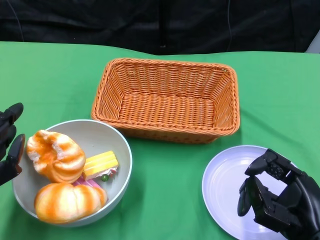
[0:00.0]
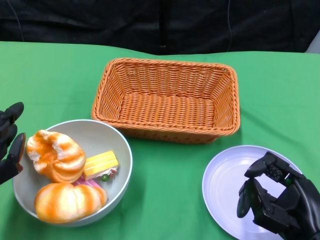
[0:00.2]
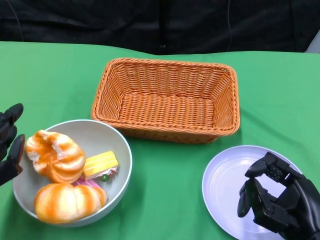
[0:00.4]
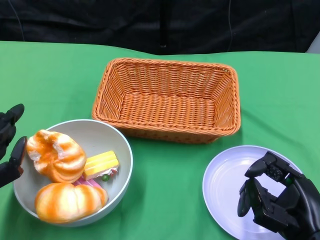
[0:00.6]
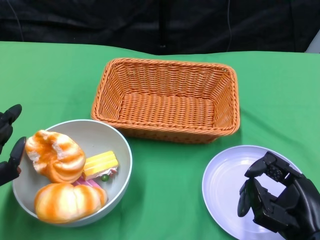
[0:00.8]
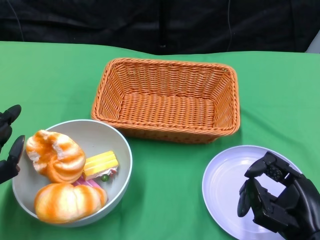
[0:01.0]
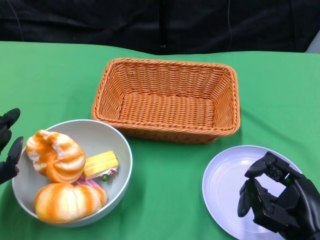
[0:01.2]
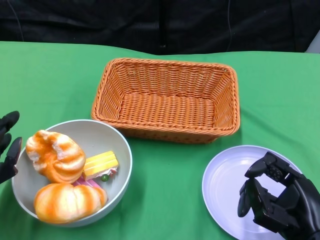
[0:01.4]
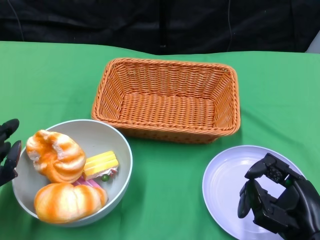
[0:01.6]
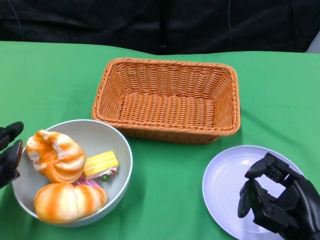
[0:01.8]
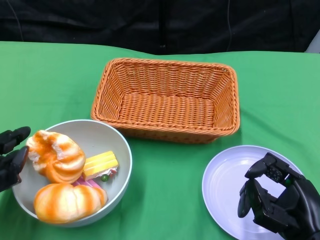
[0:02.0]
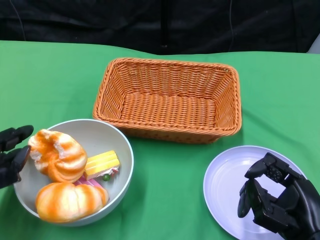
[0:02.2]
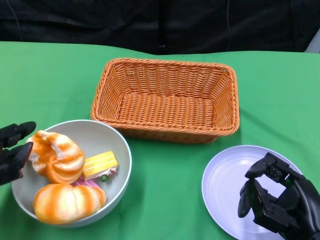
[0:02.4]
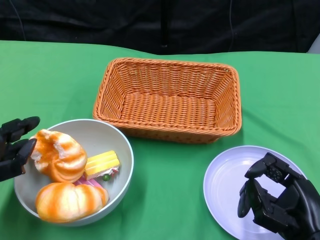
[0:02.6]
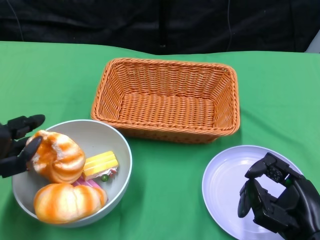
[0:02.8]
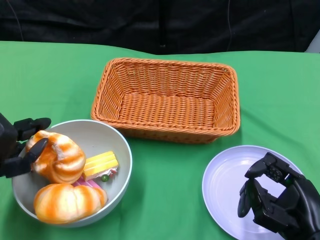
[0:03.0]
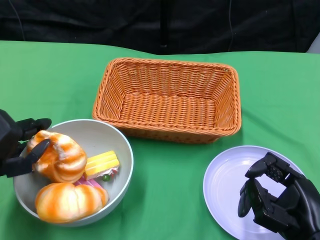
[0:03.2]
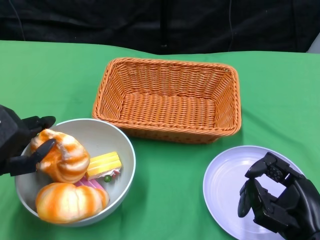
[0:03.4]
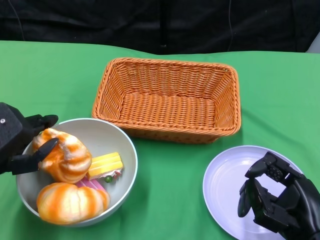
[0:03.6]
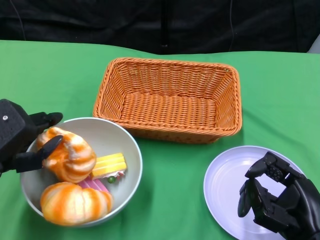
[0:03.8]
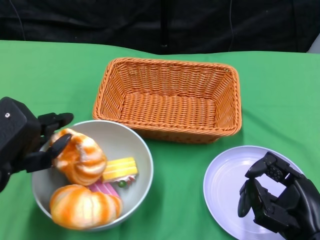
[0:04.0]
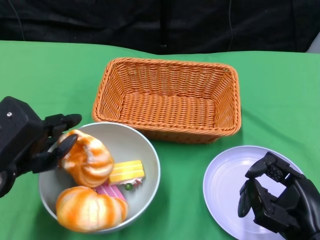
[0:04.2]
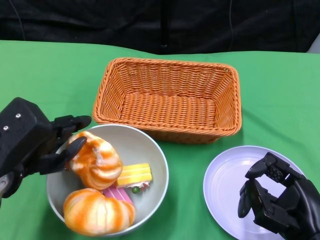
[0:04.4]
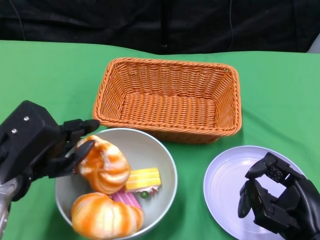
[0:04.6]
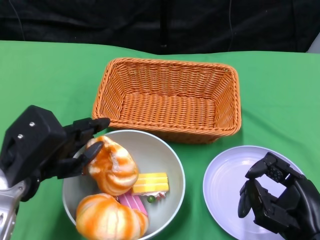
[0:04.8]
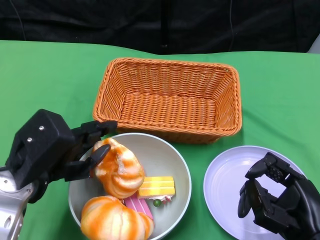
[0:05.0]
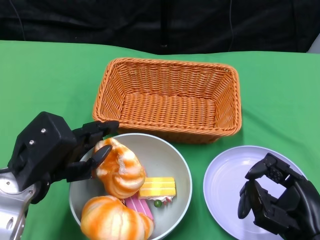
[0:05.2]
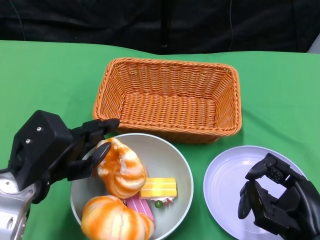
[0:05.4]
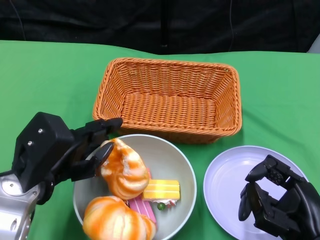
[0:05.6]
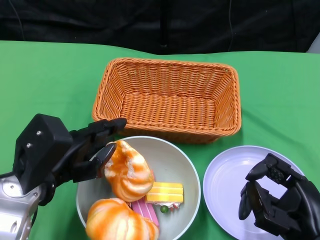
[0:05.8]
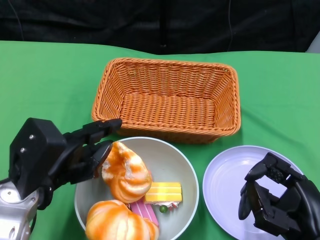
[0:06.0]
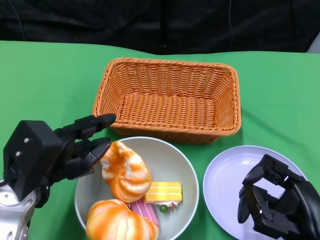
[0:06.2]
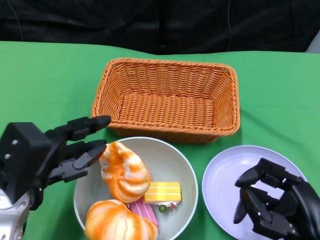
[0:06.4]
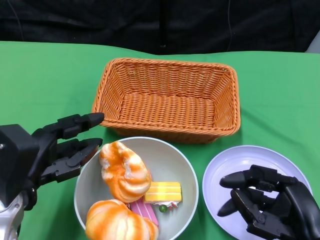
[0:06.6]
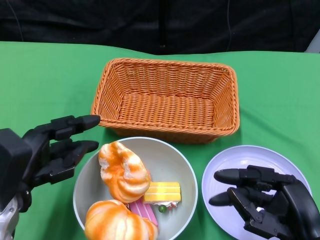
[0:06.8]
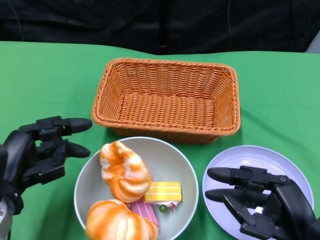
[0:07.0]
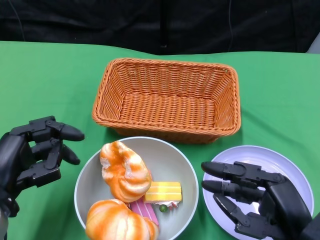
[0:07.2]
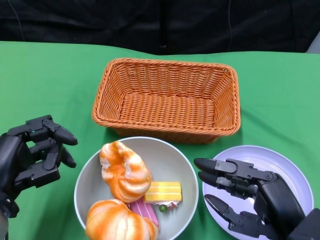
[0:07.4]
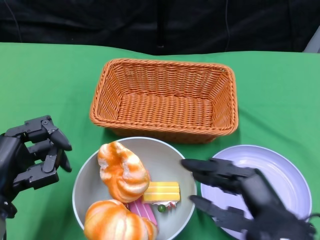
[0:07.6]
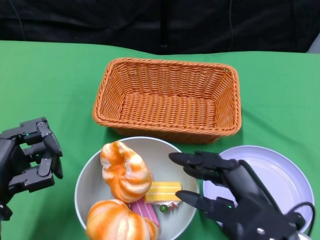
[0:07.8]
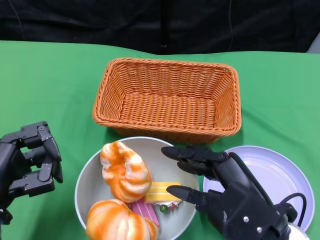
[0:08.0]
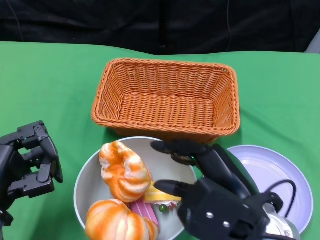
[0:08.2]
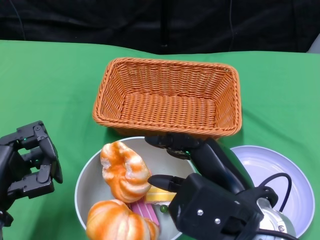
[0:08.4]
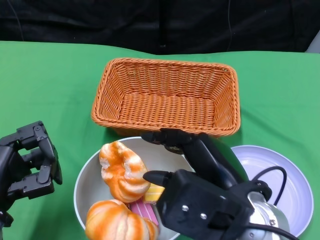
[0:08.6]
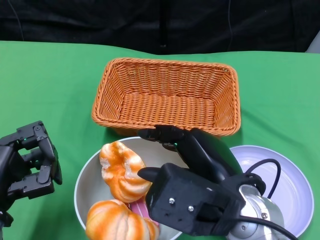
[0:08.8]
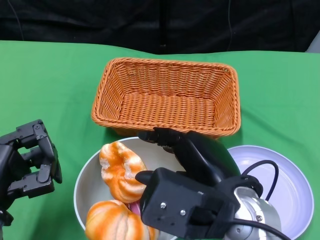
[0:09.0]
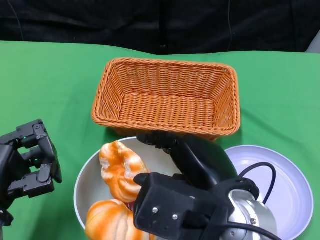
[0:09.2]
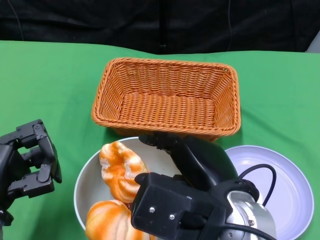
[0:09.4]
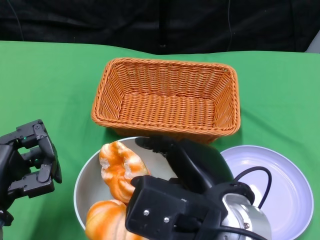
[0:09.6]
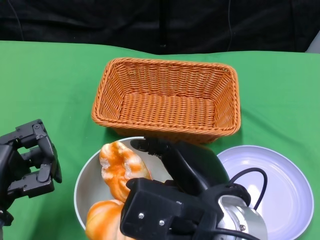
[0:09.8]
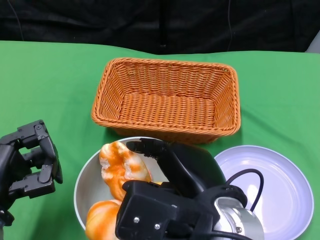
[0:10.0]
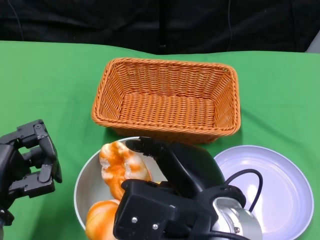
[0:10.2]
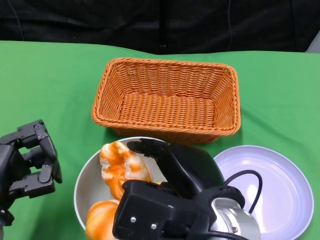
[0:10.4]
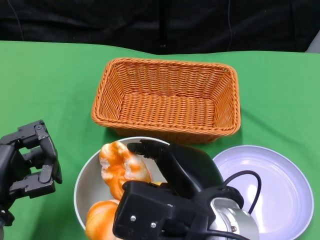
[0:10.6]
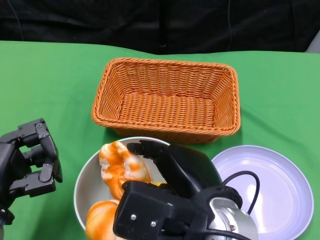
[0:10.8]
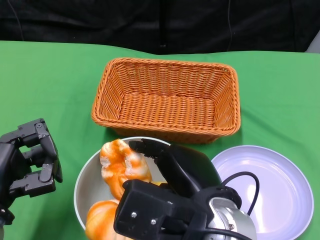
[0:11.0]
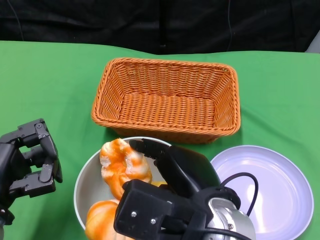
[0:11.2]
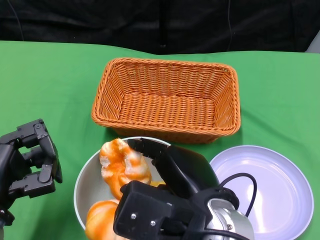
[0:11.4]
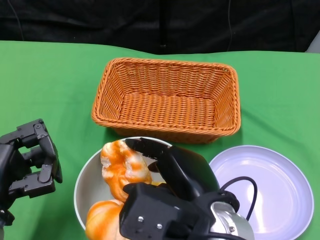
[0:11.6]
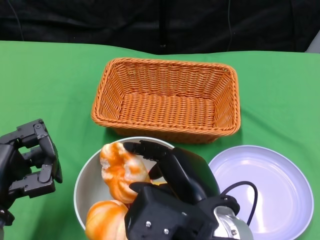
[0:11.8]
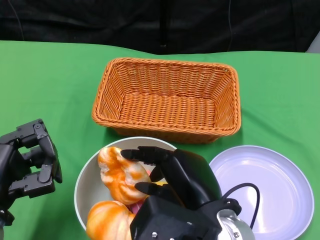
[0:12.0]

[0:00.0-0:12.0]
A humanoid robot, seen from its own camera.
Step, 0:00.0 to 0:06.2: Push the bowl to the center of the table using the left gripper.
0:00.0 to 0:01.6: The hands make only small movements.
0:01.6 to 0:03.0: The hands make only small movements.
0:06.0 to 0:07.6: The right hand changes place by about 5 cm. The left hand shifts by some 5 cm.
0:07.6 to 0:09.0: The right hand shifts approximately 10 cm to the left and upward.
0:09.0 to 0:12.0: The hands stay close to where they were, moving slightly.

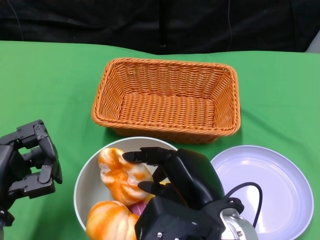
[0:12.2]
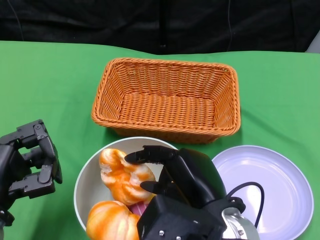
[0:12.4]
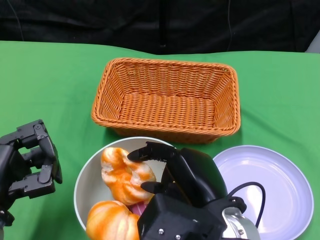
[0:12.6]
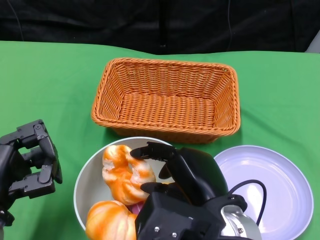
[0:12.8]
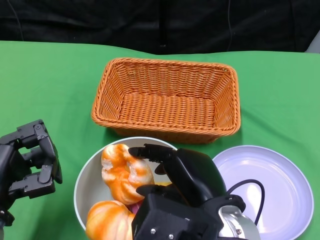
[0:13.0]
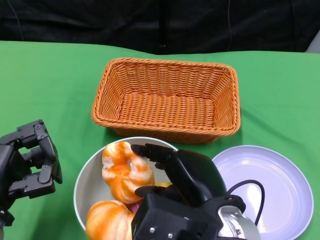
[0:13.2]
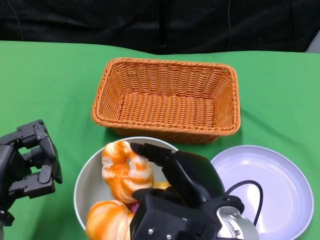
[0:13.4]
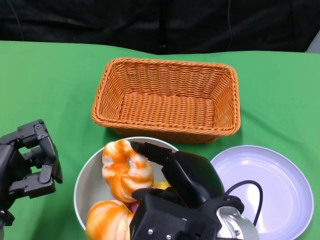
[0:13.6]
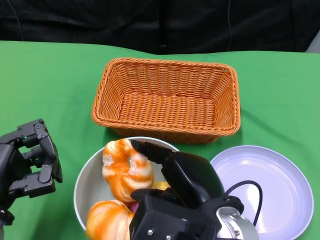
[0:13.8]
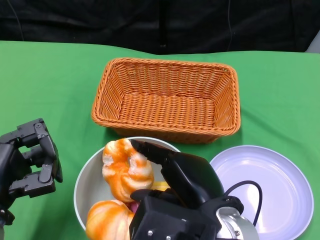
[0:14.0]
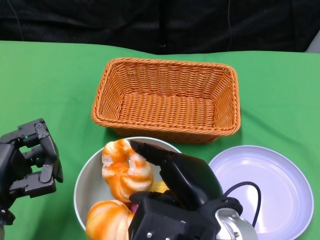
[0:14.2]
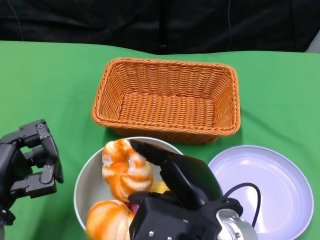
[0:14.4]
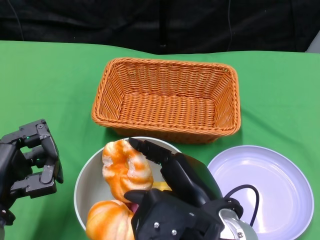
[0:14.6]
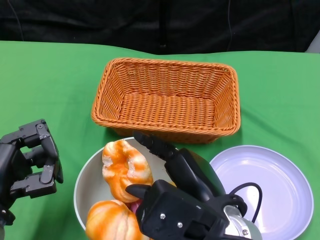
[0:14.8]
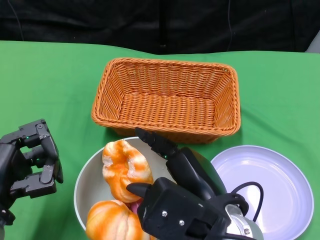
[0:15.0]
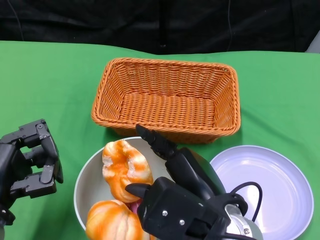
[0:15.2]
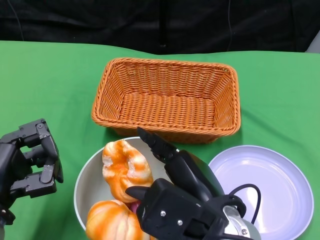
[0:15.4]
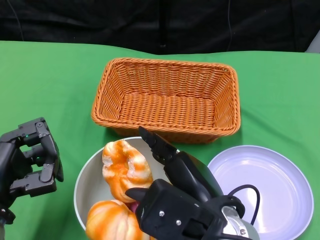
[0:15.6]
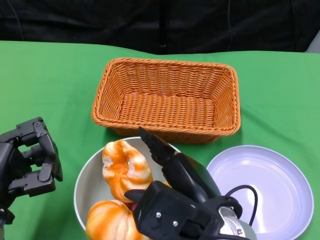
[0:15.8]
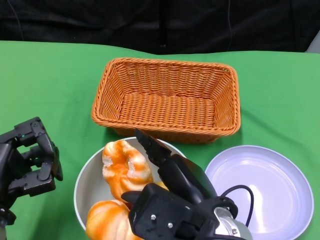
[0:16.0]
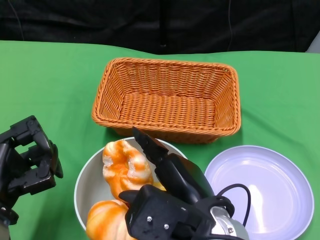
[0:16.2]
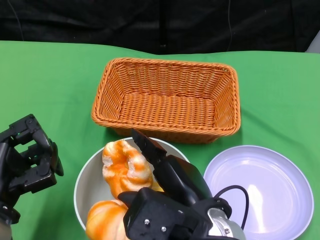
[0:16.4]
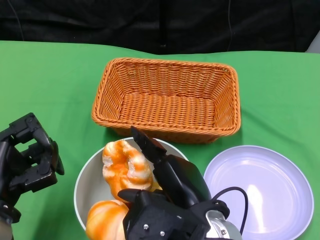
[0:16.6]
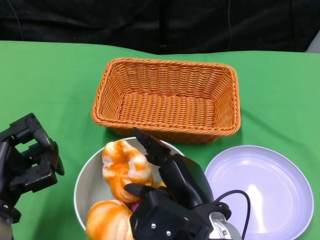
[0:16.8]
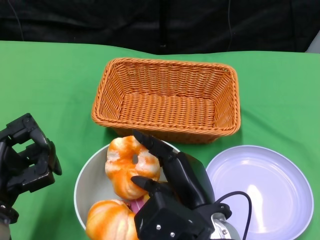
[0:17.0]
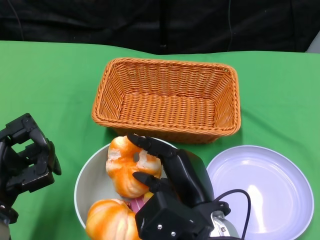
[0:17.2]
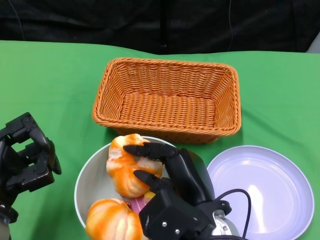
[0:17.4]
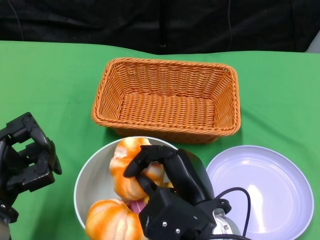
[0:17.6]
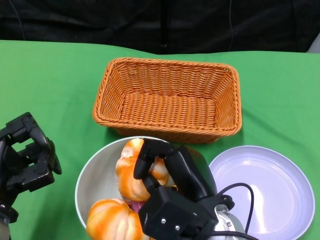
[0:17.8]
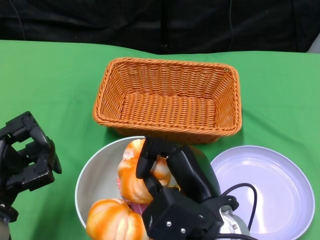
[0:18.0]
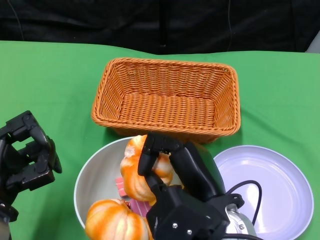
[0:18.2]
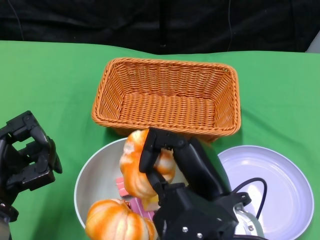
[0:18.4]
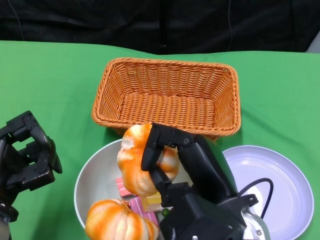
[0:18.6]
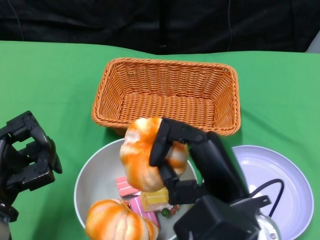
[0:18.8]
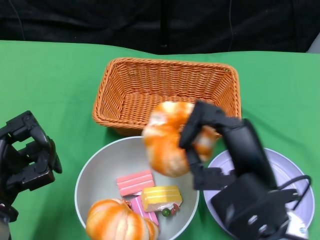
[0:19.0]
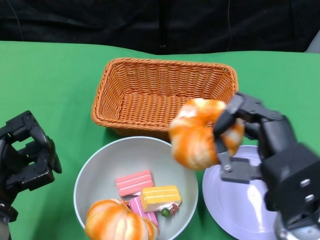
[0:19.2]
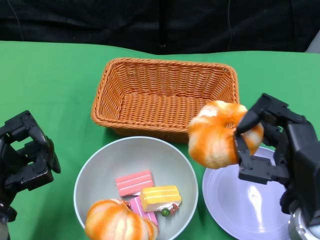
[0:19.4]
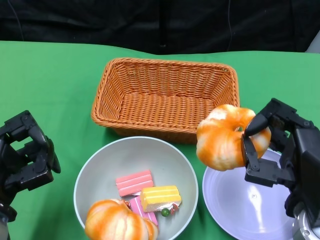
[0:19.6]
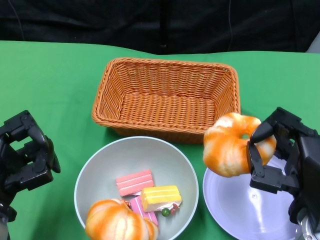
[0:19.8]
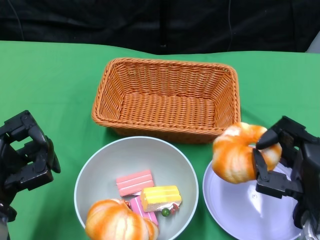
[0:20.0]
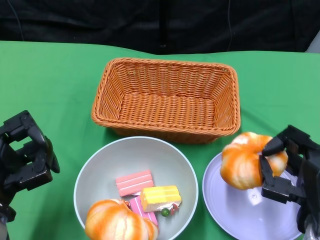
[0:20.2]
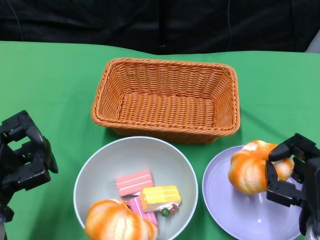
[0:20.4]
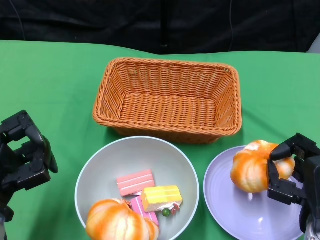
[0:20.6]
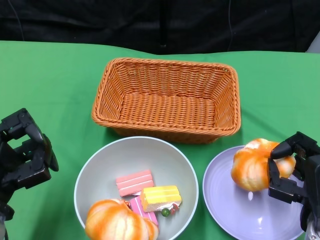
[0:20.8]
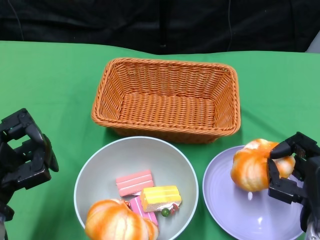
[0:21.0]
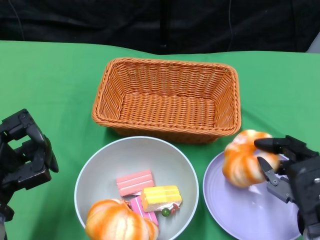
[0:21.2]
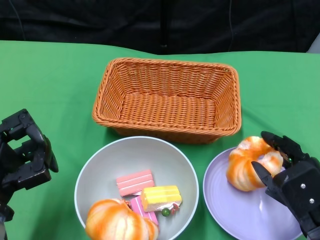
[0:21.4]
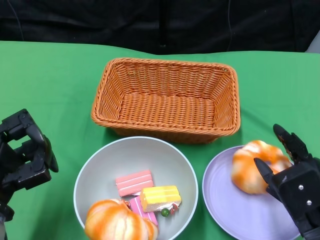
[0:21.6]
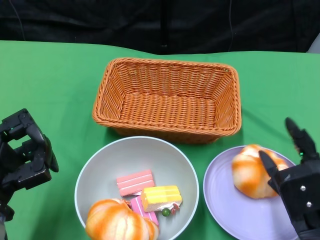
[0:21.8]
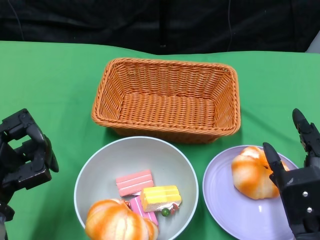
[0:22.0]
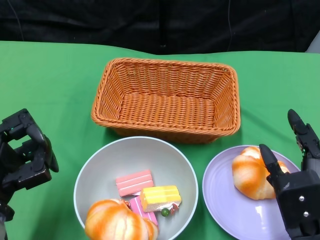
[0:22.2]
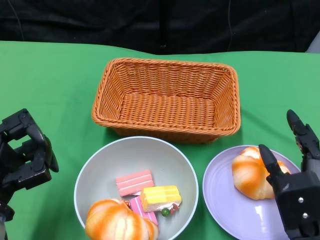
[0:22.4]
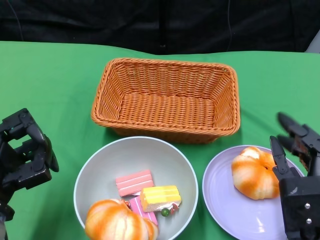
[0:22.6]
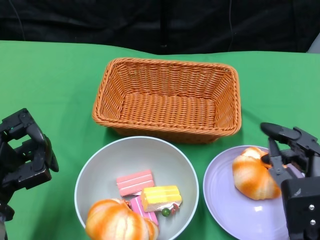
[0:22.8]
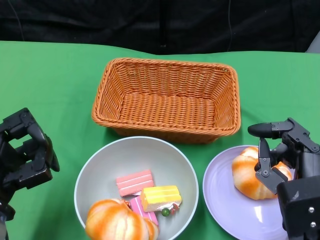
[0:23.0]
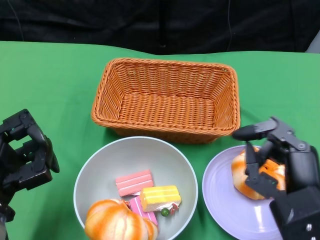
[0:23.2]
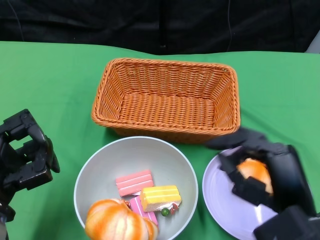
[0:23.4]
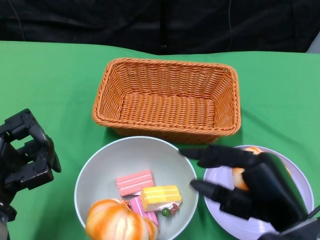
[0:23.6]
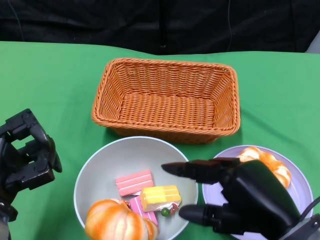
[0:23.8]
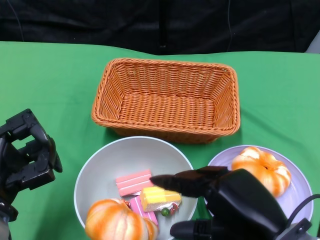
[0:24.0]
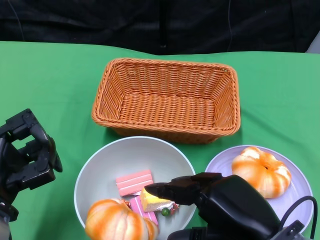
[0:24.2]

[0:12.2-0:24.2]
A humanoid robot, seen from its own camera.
0:12.2 to 0:18.2: The hands make only small movements.
0:18.2 to 0:19.8: The right hand travels to the right by about 10 cm.
0:19.8 to 0:21.2: The right hand ends up about 5 cm from where it was.
0:22.6 to 0:24.2: The right hand is displaced upward by some 5 cm.
